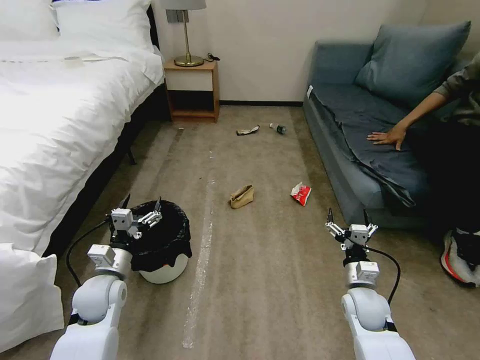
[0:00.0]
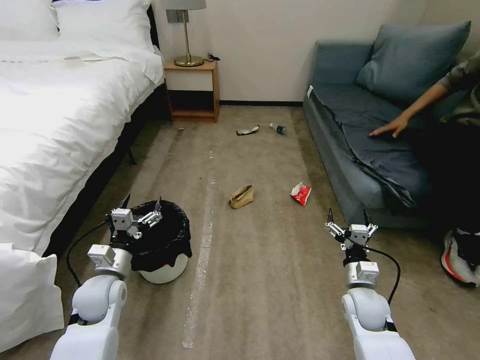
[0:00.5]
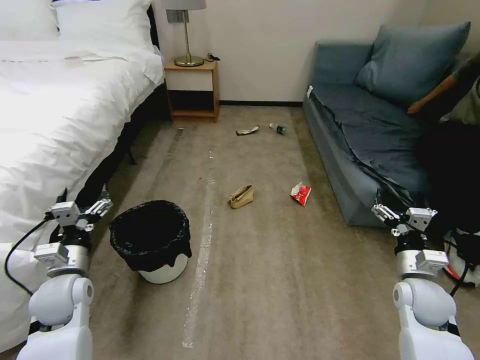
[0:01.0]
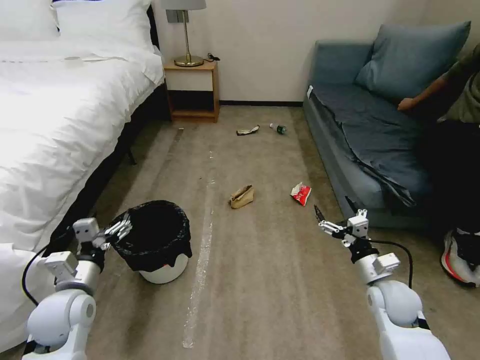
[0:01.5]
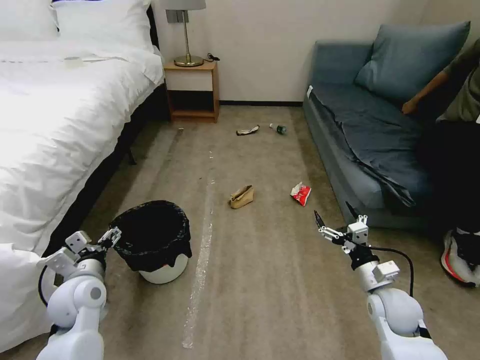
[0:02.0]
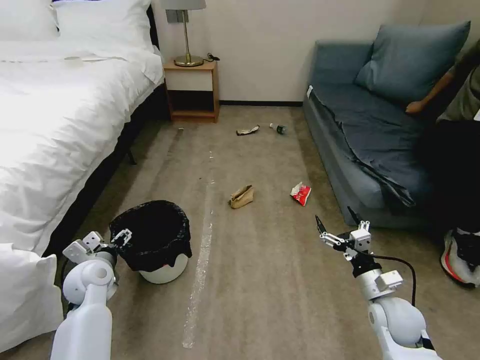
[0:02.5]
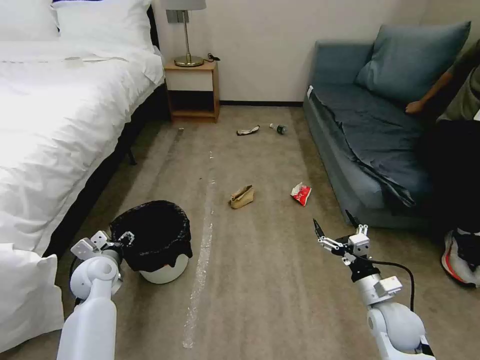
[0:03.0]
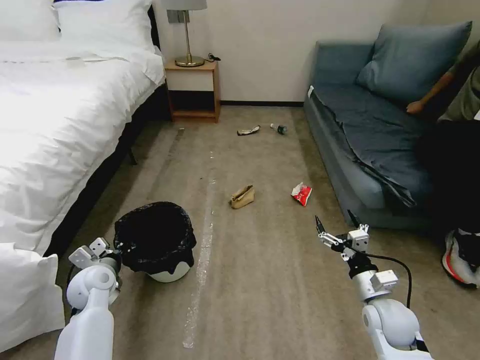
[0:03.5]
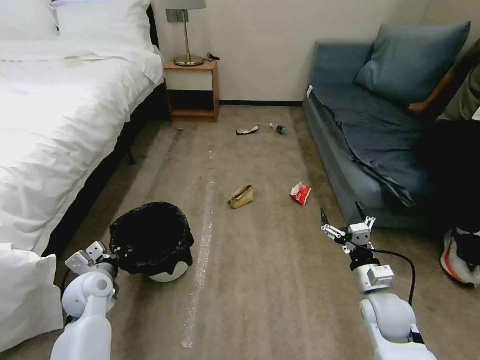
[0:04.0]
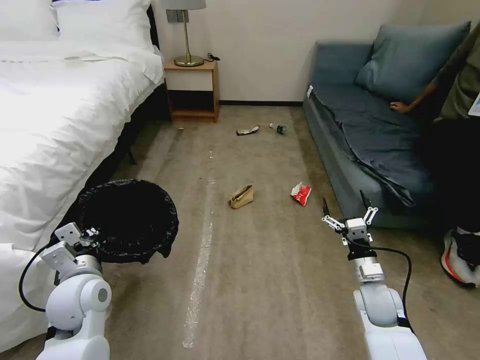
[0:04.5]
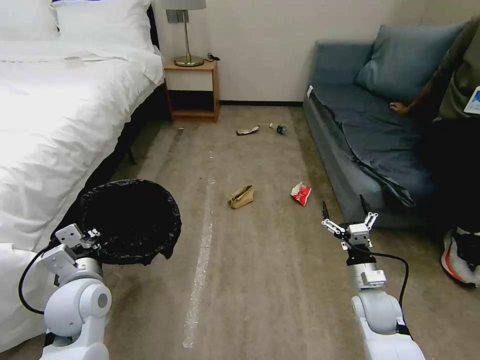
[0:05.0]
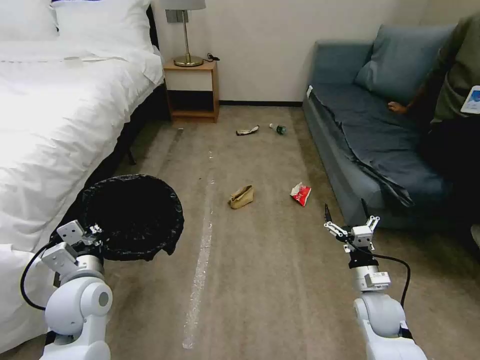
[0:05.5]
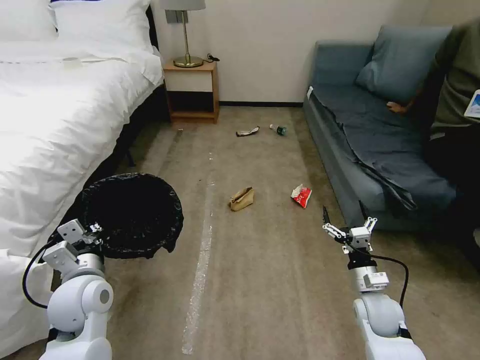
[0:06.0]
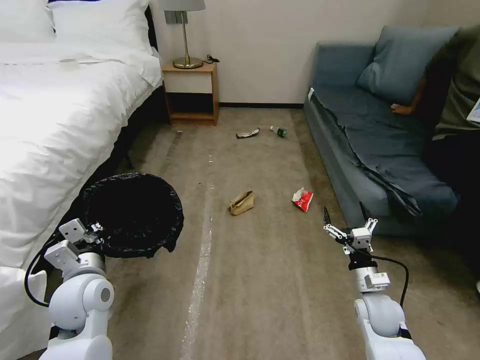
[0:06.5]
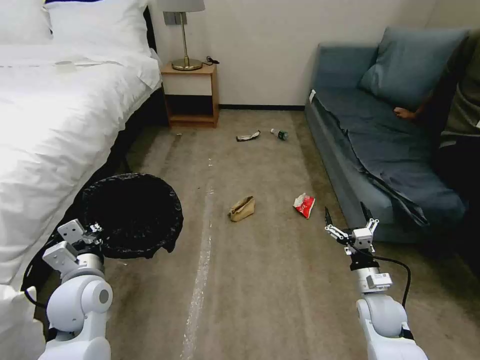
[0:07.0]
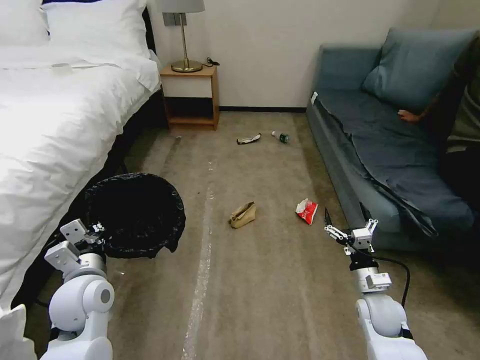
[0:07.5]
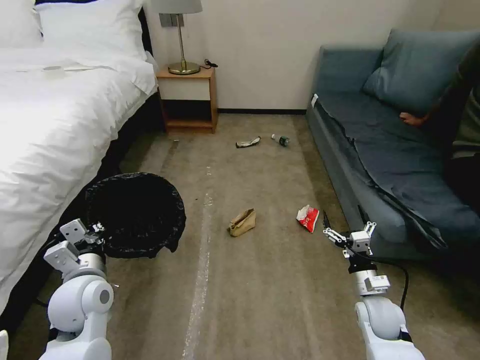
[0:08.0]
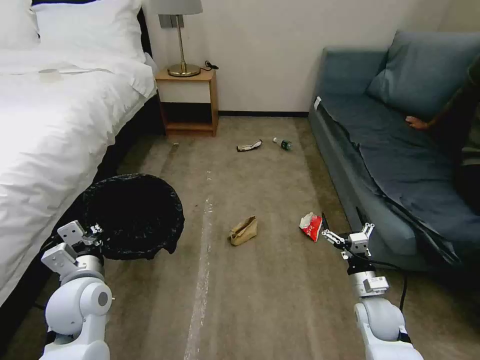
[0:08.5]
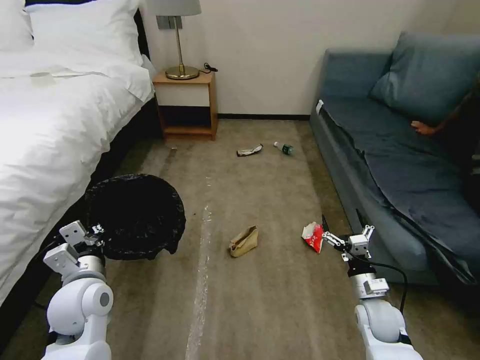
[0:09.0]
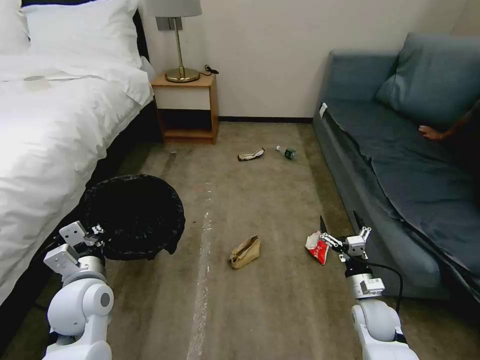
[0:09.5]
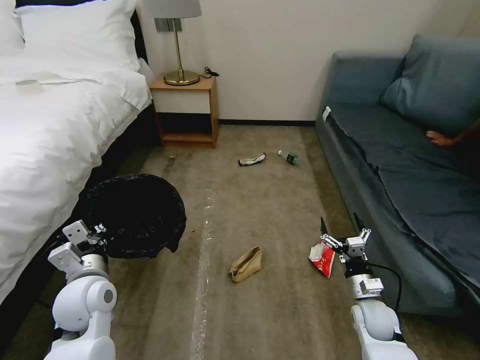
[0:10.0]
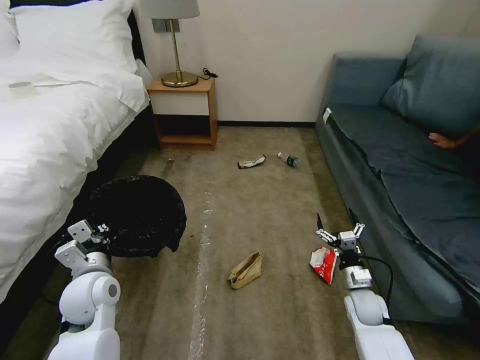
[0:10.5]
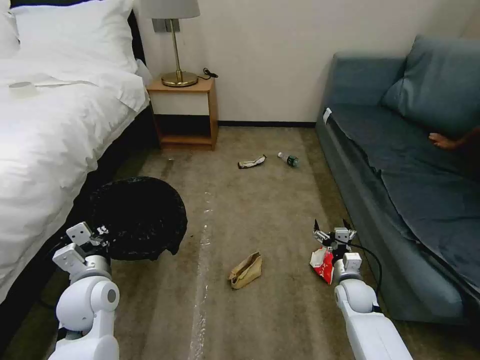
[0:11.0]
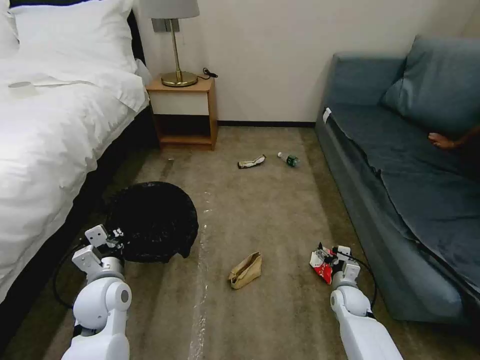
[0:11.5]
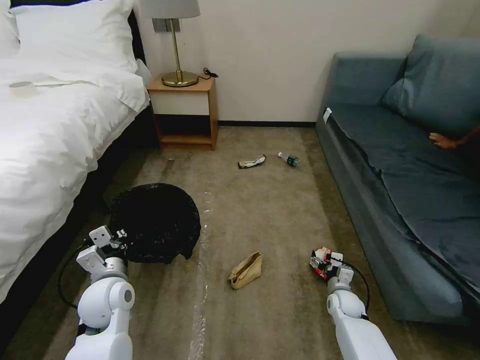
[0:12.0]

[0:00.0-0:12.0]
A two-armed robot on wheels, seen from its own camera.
Task of the whole recording: Pick up the trash bin, then pick up the garbage on the floor and place it into the trash bin.
0:02.0 to 0:04.0: The left gripper changes place by approximately 5 cm, and closes up.
0:04.0 to 0:06.0: The left gripper is displaced upward, to the right and backward by about 10 cm.
0:10.0 to 0:12.0: The right gripper is displaced downward and forward by roughly 10 cm.

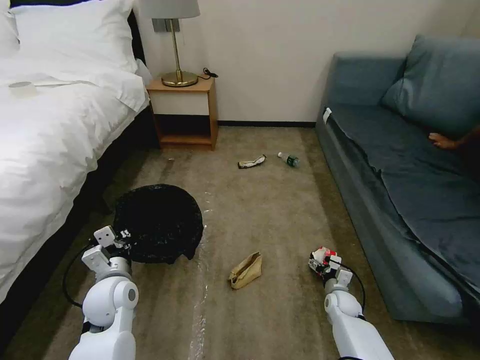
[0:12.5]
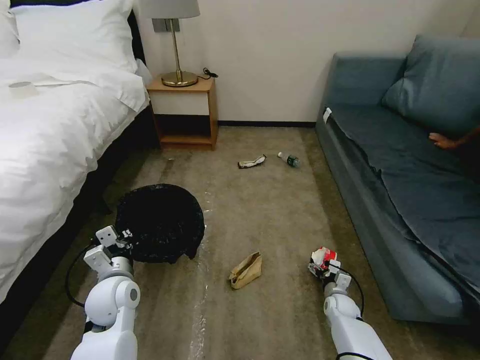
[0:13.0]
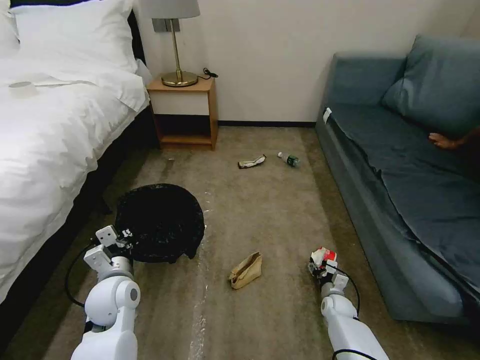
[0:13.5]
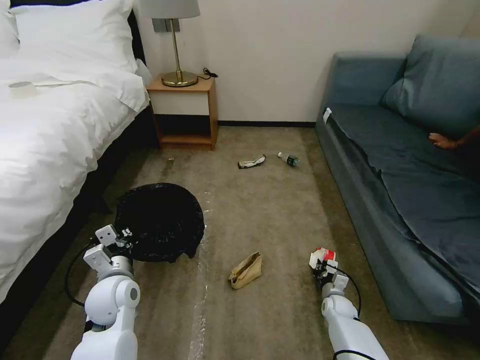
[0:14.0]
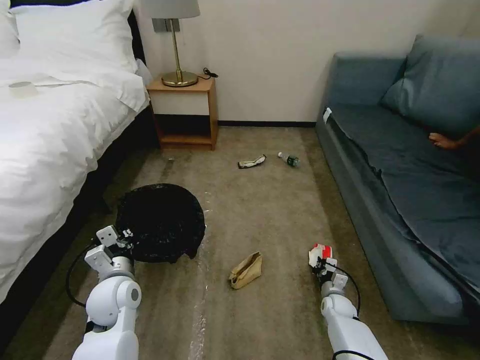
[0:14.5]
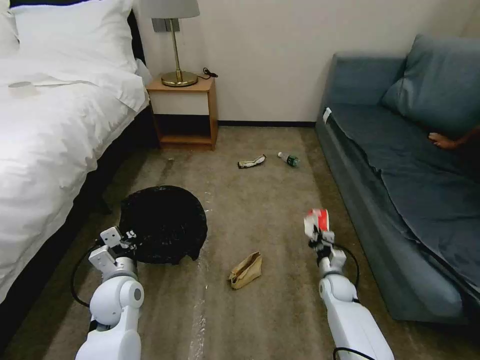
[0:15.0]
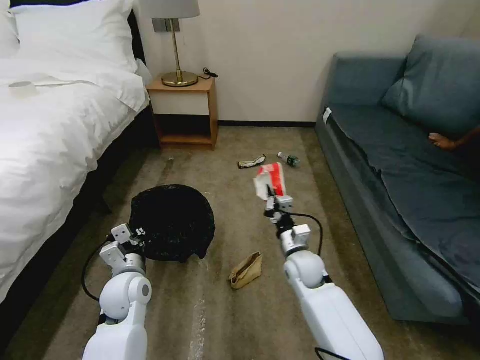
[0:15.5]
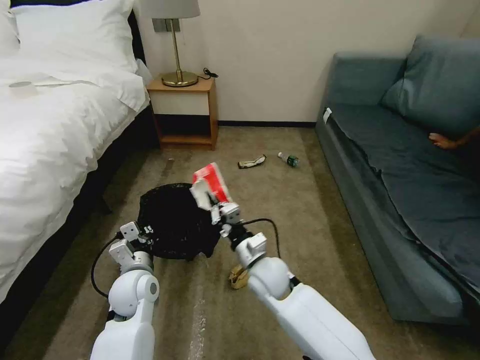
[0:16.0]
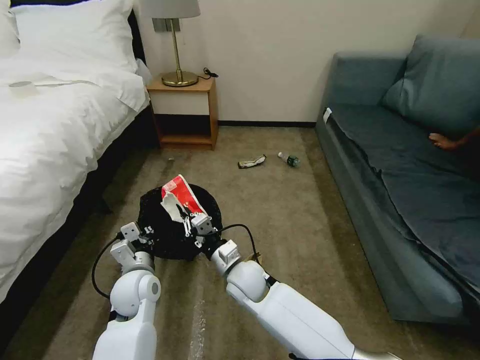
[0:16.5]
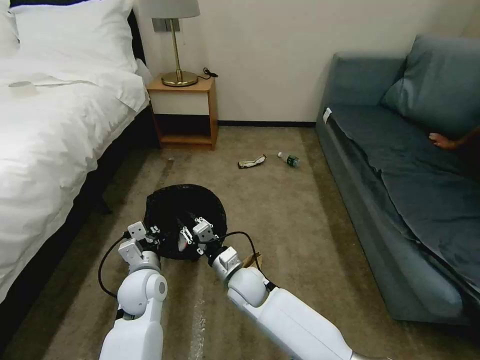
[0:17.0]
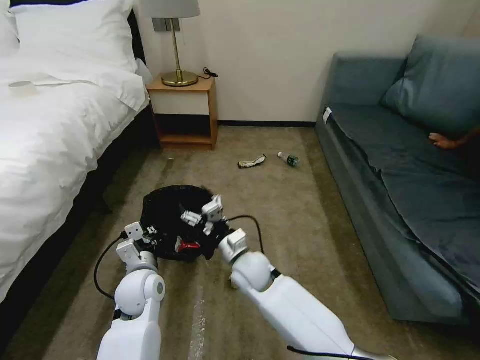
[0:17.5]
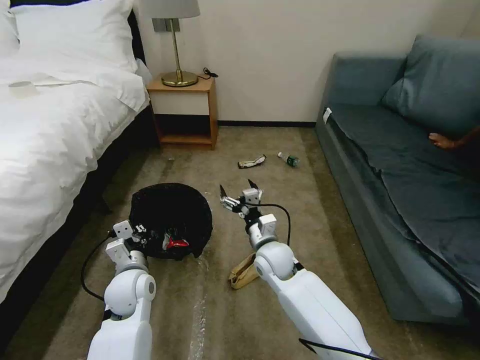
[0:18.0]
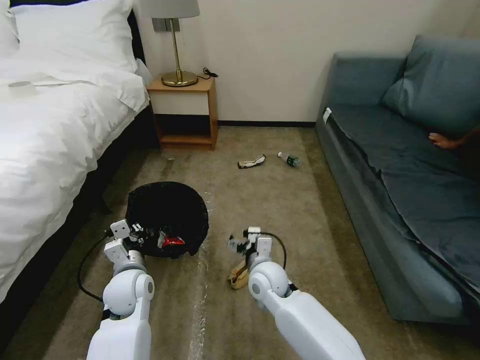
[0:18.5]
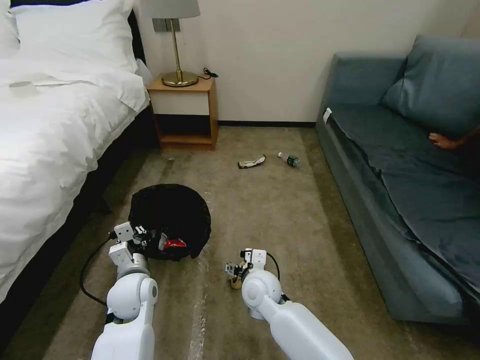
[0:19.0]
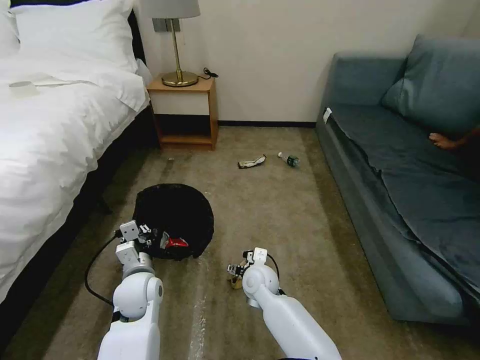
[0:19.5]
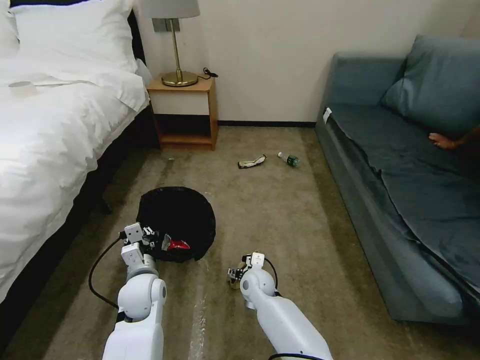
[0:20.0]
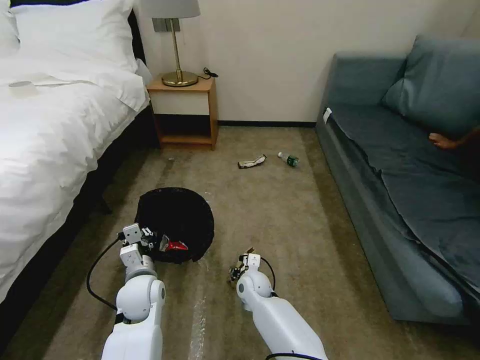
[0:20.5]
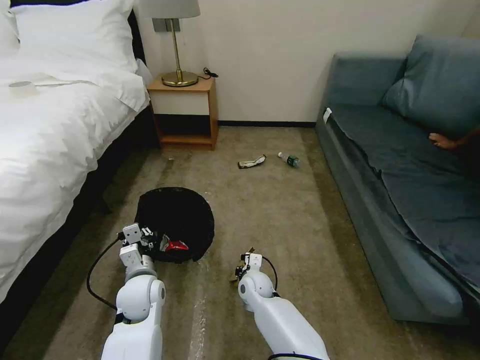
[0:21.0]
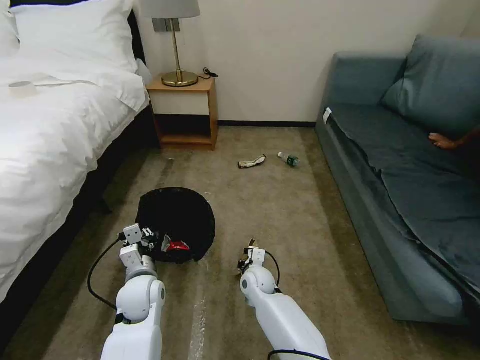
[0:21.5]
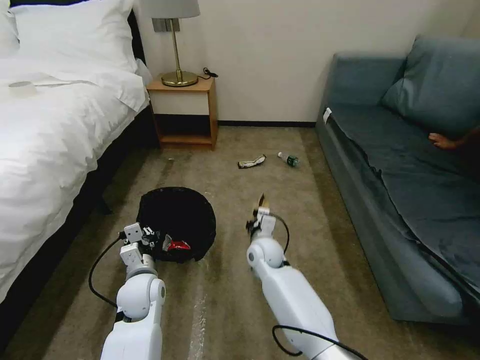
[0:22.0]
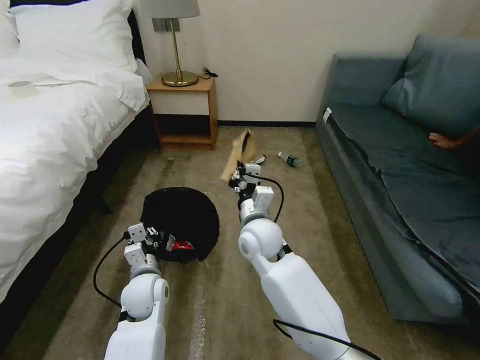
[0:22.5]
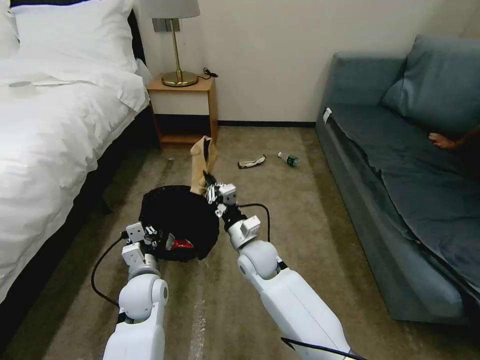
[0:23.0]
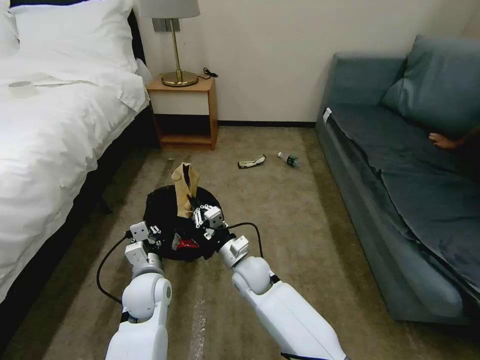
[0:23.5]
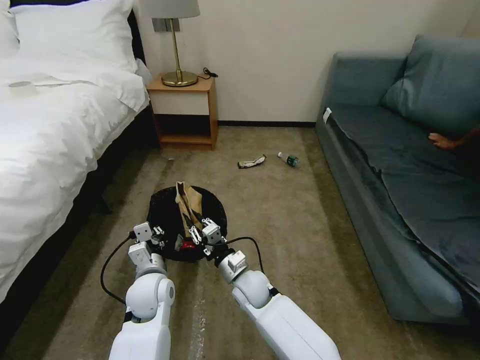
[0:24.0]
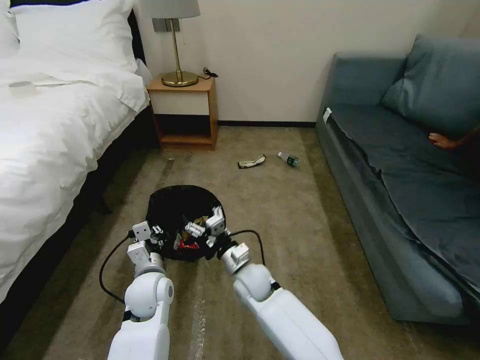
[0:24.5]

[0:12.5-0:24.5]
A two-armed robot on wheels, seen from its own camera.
Task of the whole recording: Pick up the trash bin, then pick up the garbage on the floor and place it into the trash bin.
0:12.5 to 0:14.5: The right gripper closes.
0:14.5 to 0:16.5: The right gripper shifts approximately 40 cm to the left and upward.
0:16.5 to 0:18.5: The right gripper shifts some 5 cm to the right, and opens up.
0:18.5 to 0:20.5: The right gripper goes roughly 10 cm downward.
0:20.5 to 0:22.5: The right gripper goes about 20 cm upward, and closes up.
0:22.5 to 0:24.5: The right gripper heads downward, covering roughly 15 cm, and opens up.

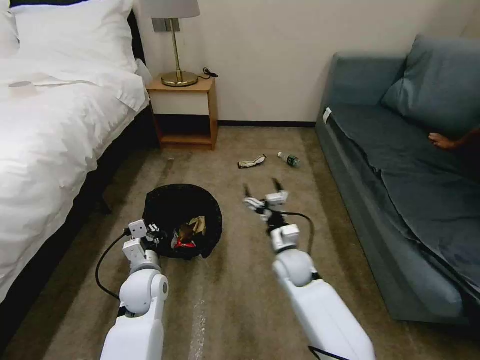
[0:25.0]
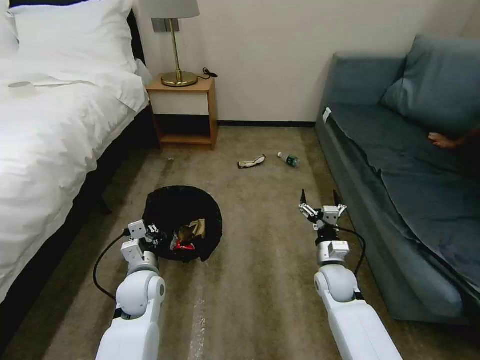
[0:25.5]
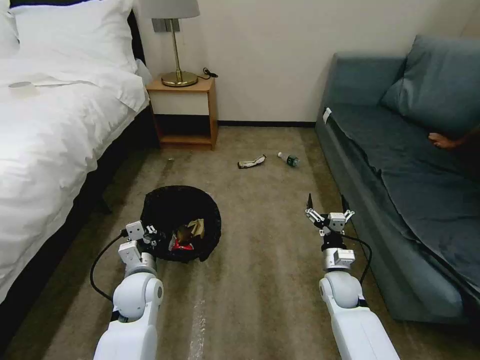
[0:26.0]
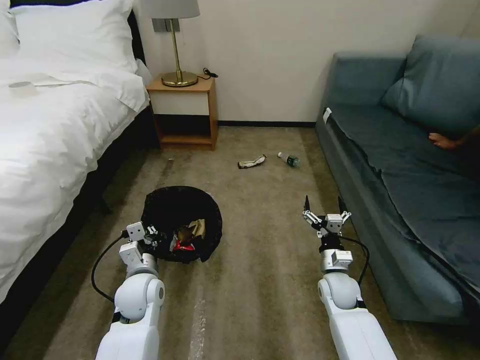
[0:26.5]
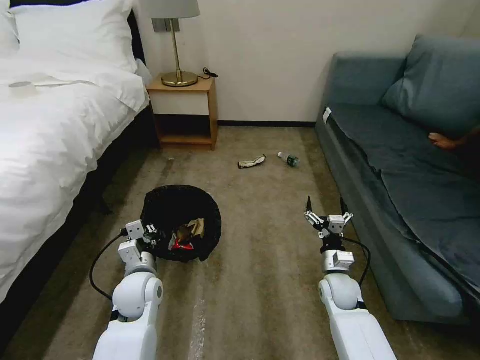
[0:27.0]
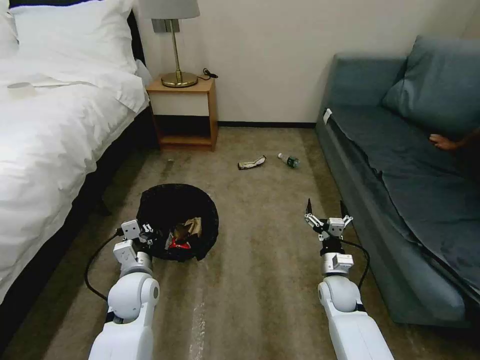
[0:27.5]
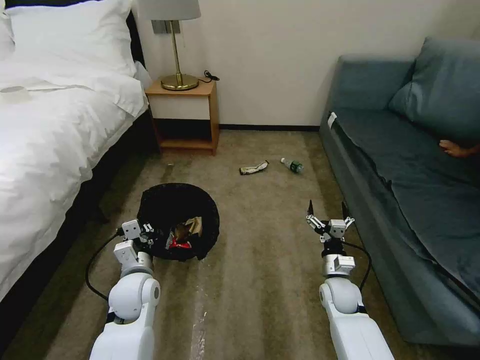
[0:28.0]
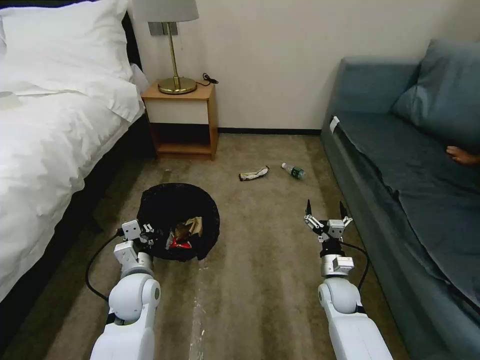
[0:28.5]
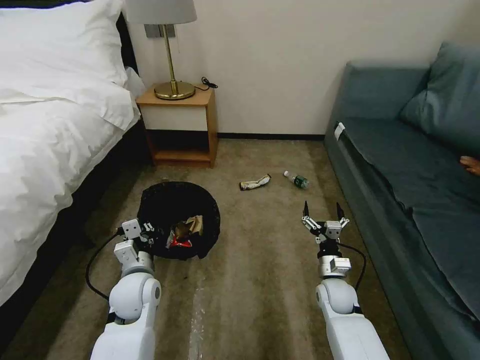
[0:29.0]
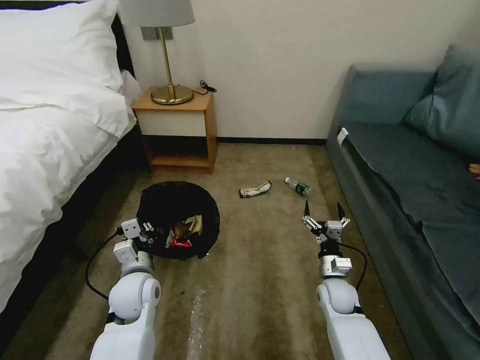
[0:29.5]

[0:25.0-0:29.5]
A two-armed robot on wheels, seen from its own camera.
Task of the whole recording: Pick up the trash bin, then pick up the garbage on the floor and place it into the trash bin.
0:25.0 to 0:27.0: The right gripper goes about 10 cm to the right.
